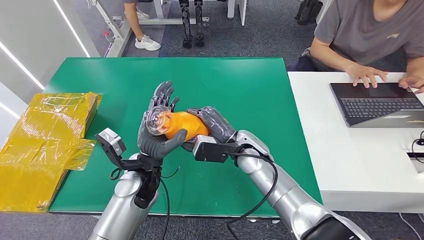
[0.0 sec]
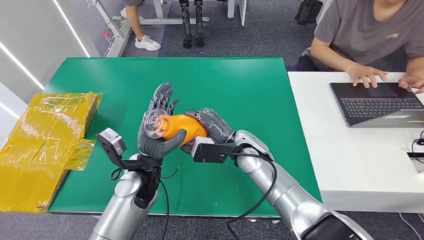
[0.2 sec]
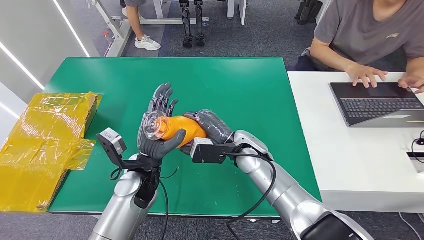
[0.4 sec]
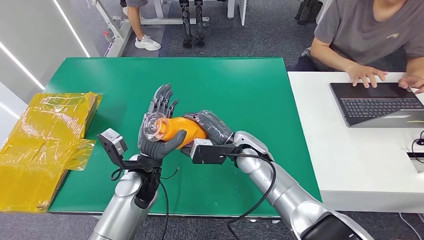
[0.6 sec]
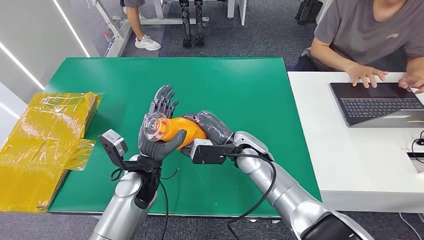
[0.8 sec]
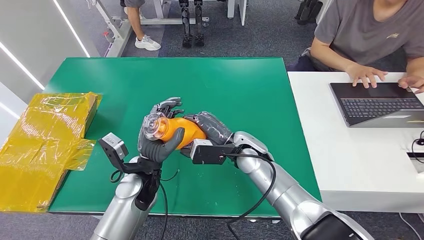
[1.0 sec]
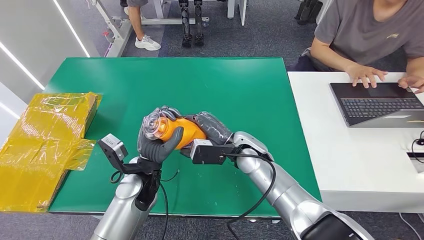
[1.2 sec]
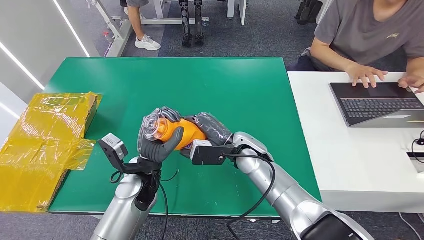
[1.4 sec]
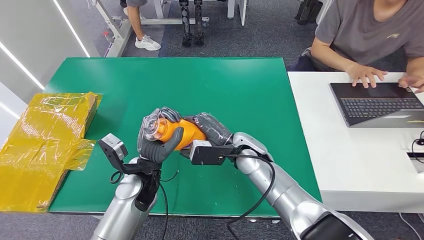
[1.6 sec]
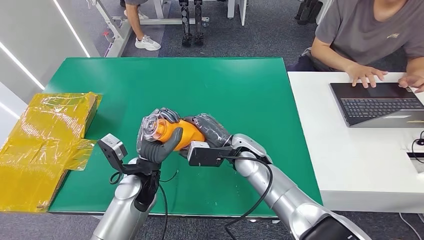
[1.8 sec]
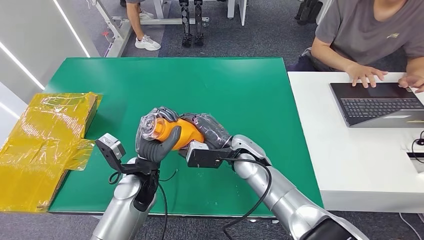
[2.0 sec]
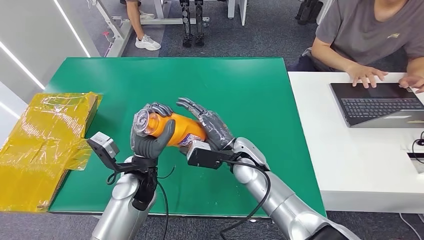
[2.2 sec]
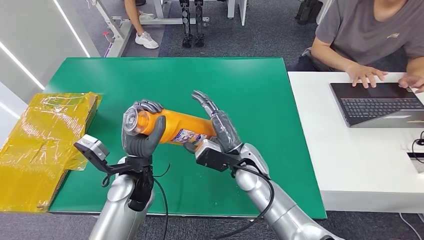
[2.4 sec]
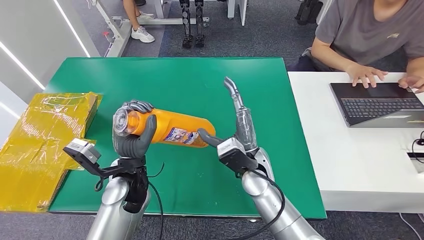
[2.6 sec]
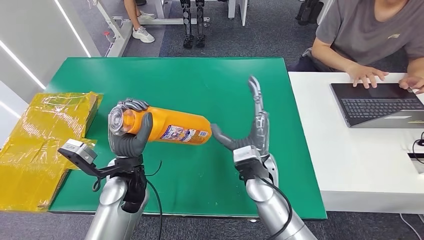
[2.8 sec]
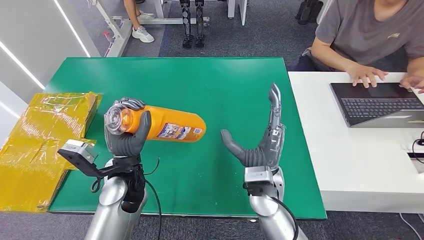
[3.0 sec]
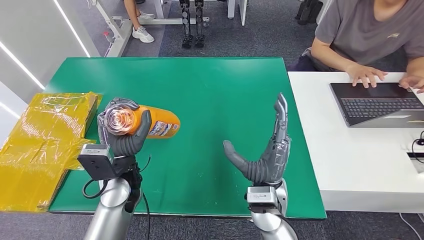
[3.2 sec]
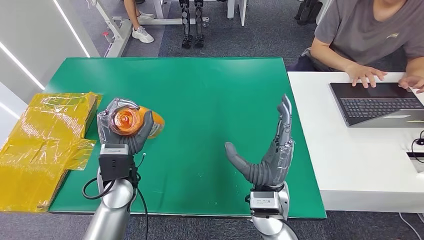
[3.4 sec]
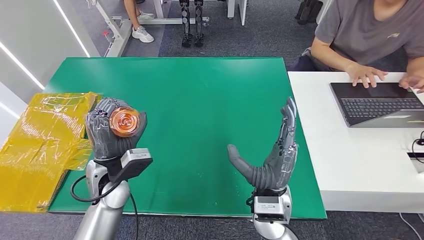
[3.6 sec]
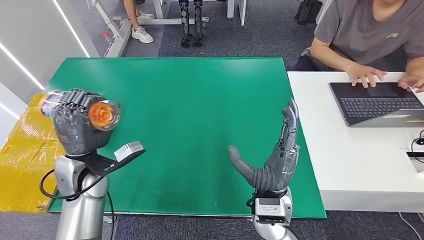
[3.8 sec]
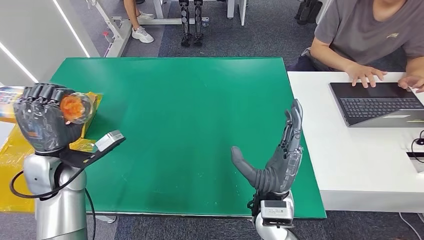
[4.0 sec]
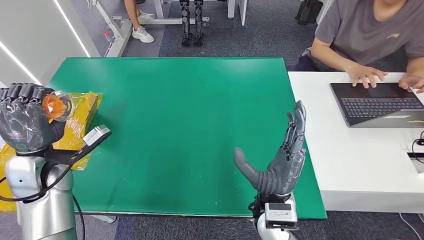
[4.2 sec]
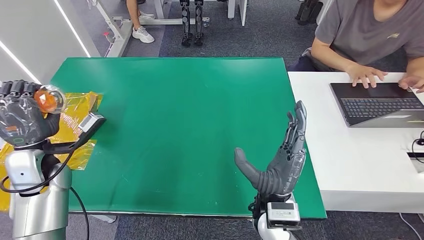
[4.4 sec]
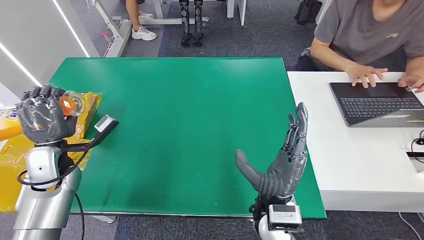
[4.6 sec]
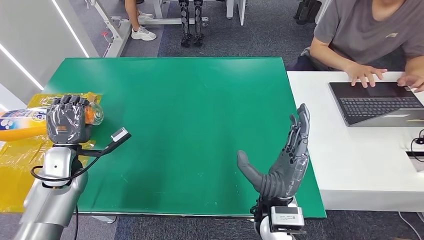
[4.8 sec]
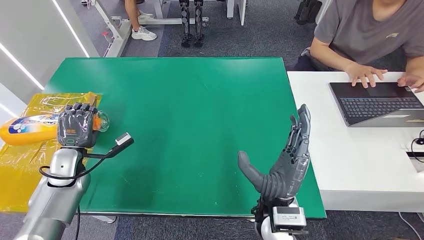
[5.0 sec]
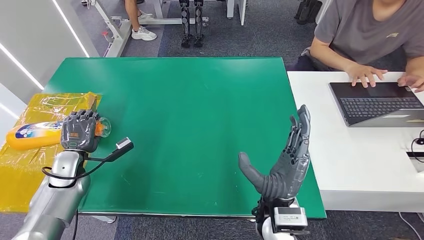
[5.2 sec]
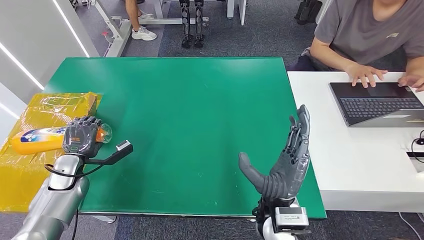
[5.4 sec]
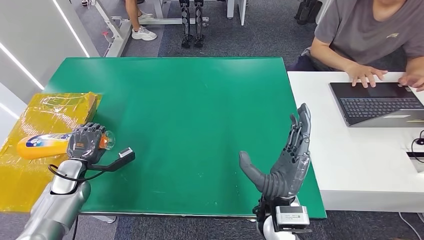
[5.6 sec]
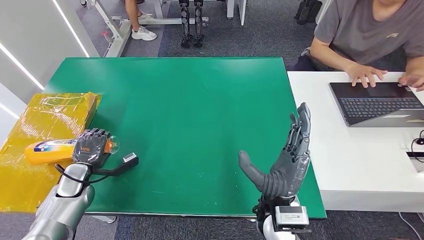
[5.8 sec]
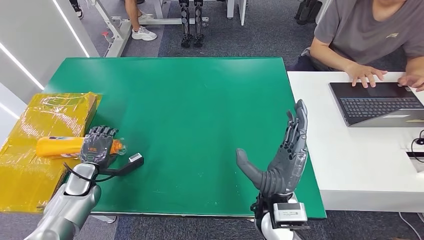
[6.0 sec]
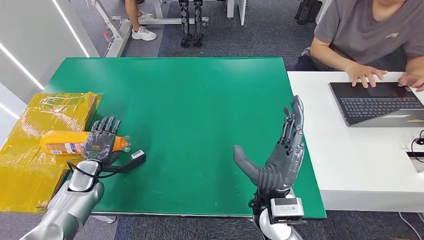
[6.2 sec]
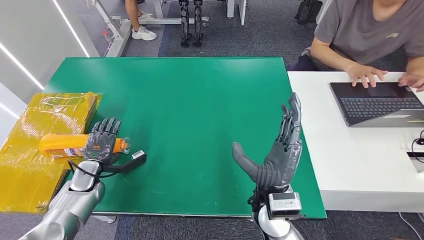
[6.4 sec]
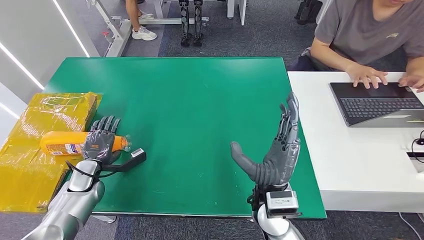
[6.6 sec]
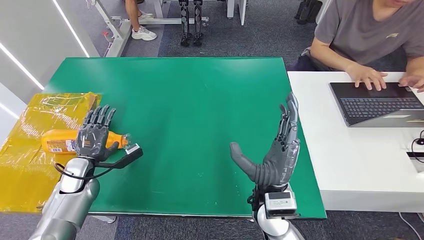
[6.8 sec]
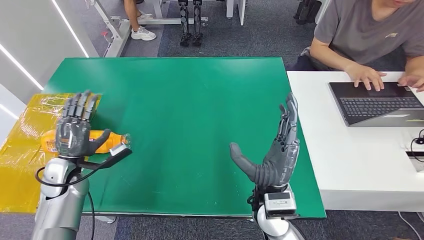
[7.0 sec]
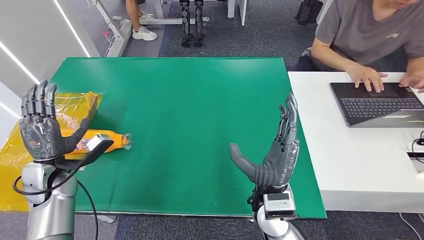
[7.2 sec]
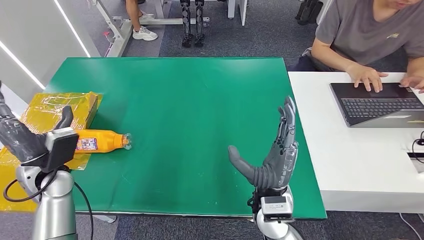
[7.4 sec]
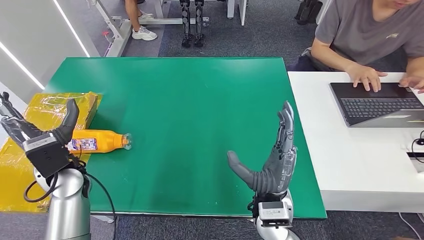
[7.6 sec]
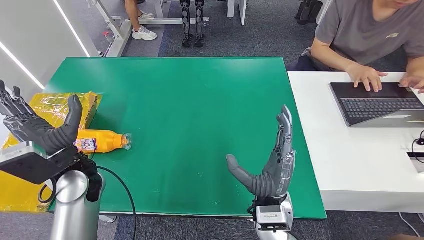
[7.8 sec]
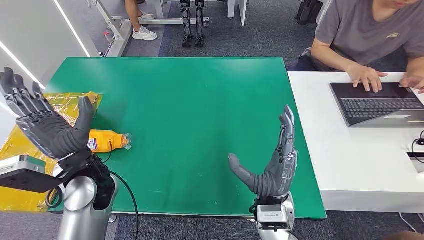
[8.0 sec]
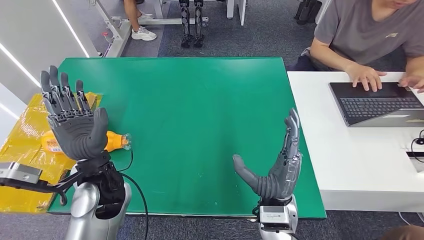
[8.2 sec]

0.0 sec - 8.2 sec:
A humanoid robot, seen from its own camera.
Step, 0.0 sec - 8.2 sec: Turn the bottle to the front side.
0.0 sec - 1.6 sec: The hands stay close to where they were, moving slightly.
1.6 sec - 3.2 sec: The right hand is displaced backward by roughly 10 cm.
3.2 sec - 5.0 sec: The left hand moves to the left, about 20 cm.
5.0 sec - 6.6 sec: The left hand shifts some 5 cm downward.
6.6 sec - 8.2 sec: The left hand heads upward and to the right, covering some 25 cm.
